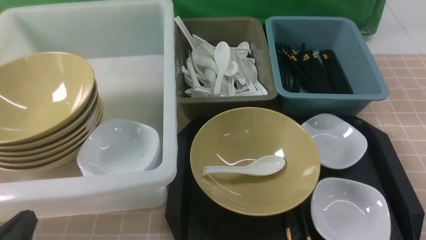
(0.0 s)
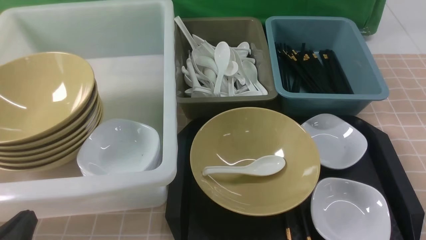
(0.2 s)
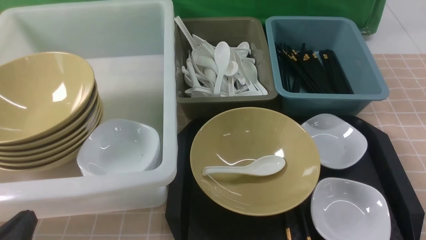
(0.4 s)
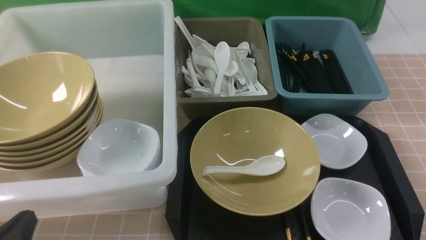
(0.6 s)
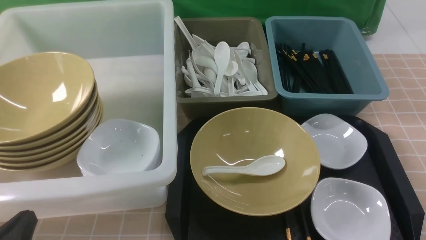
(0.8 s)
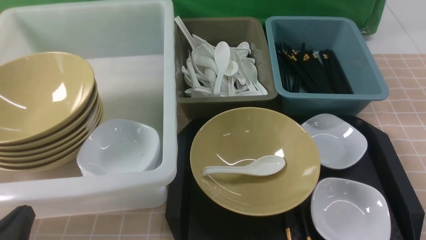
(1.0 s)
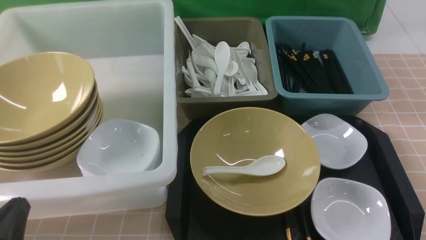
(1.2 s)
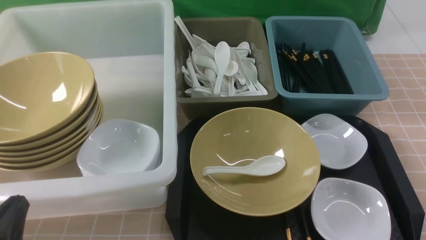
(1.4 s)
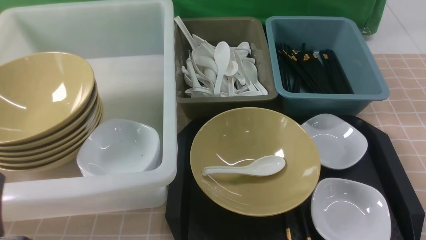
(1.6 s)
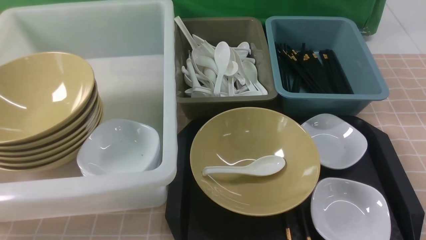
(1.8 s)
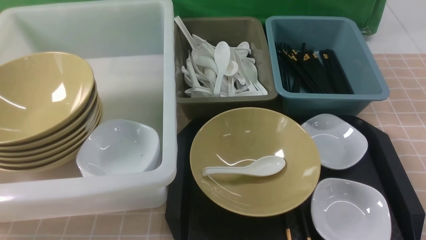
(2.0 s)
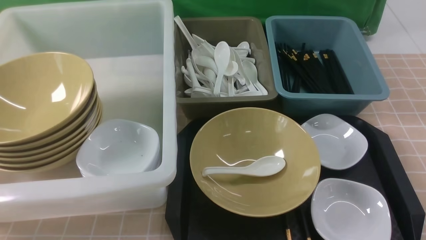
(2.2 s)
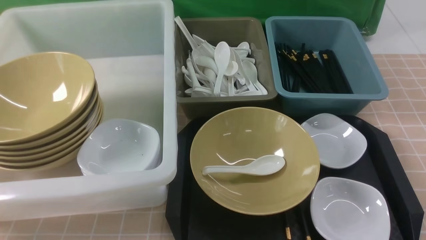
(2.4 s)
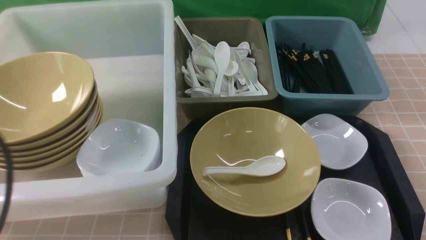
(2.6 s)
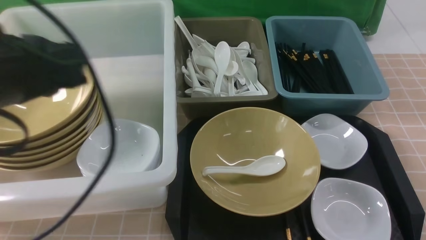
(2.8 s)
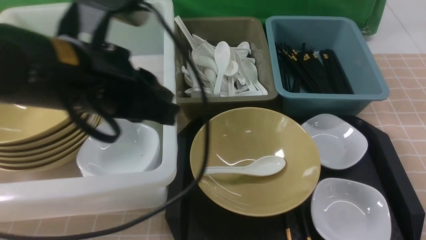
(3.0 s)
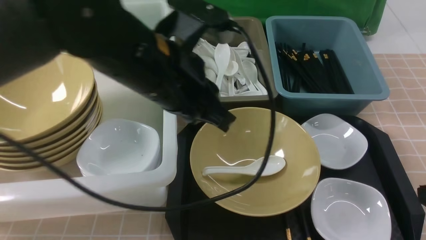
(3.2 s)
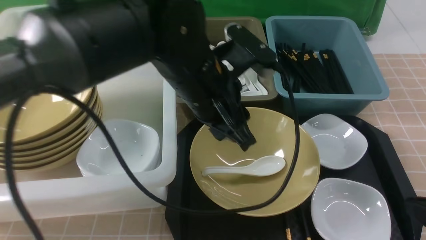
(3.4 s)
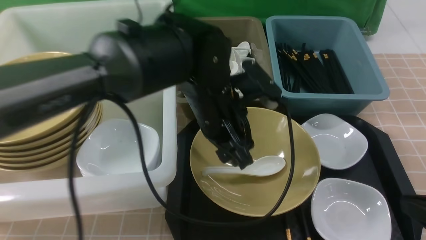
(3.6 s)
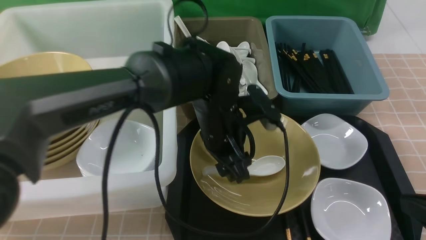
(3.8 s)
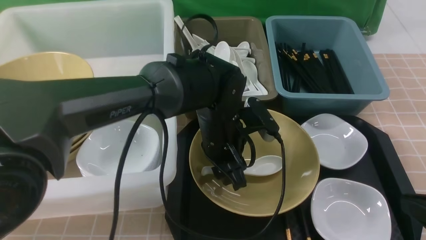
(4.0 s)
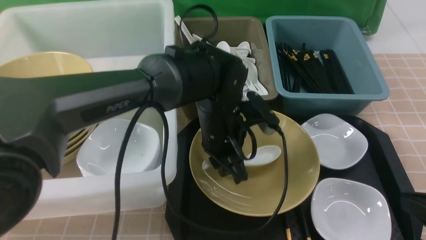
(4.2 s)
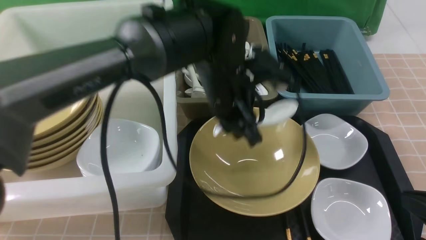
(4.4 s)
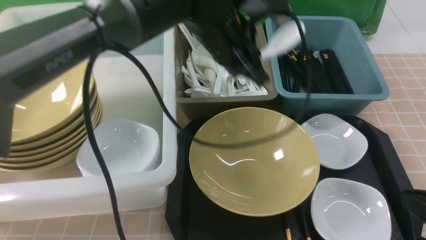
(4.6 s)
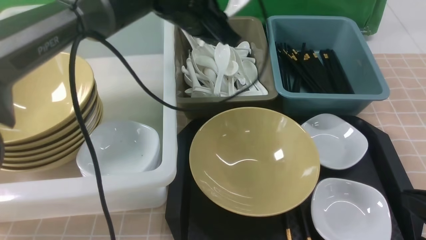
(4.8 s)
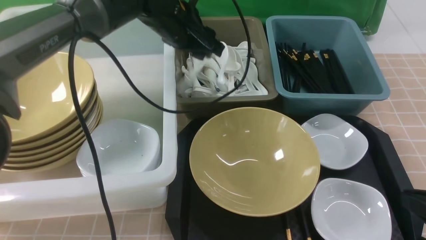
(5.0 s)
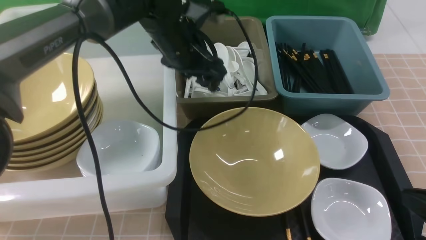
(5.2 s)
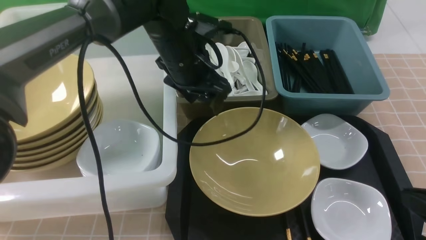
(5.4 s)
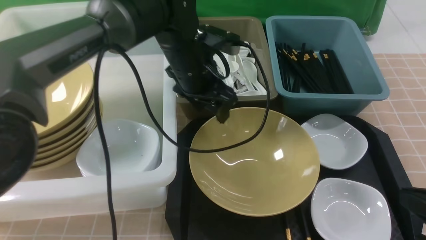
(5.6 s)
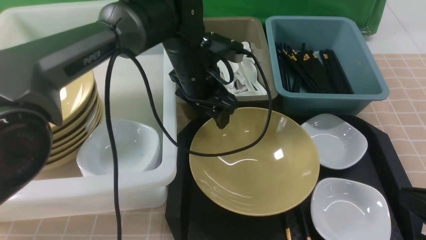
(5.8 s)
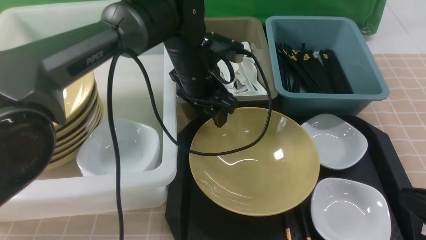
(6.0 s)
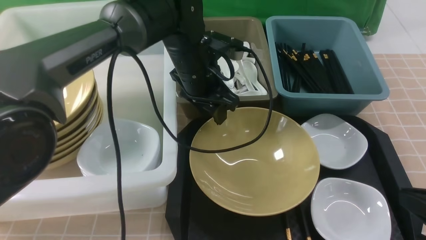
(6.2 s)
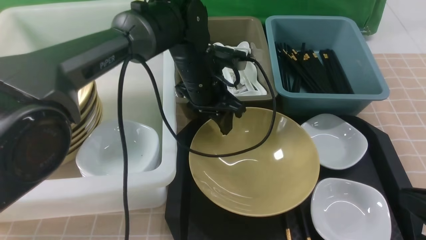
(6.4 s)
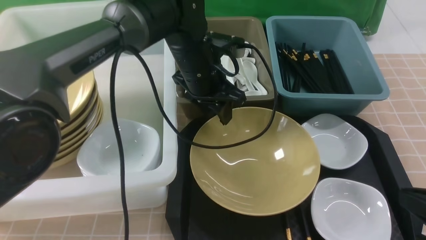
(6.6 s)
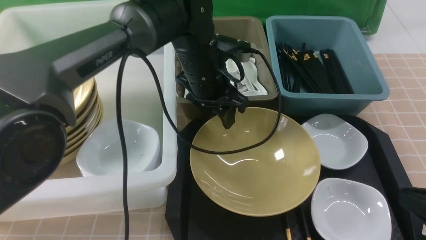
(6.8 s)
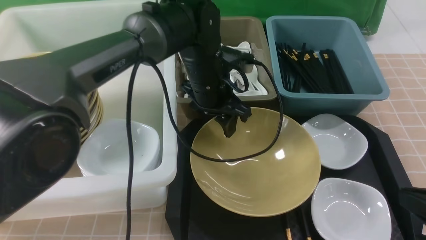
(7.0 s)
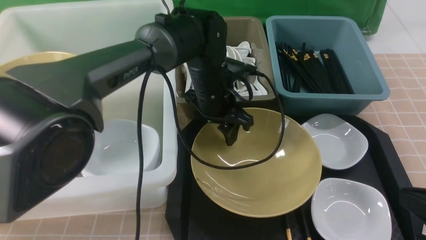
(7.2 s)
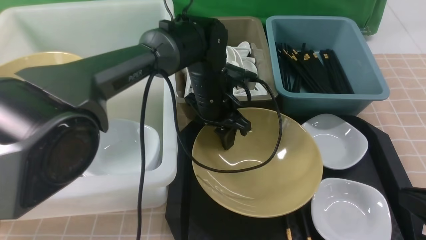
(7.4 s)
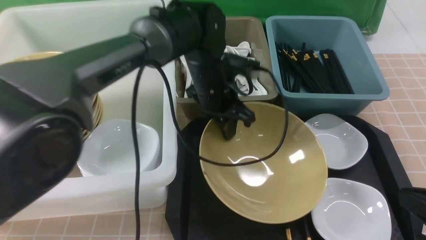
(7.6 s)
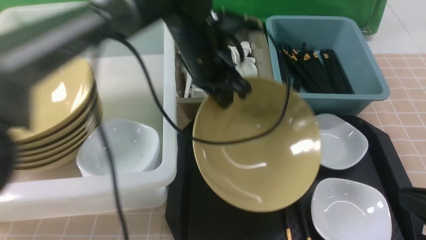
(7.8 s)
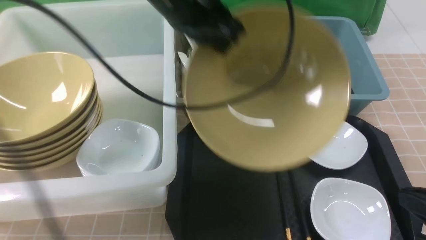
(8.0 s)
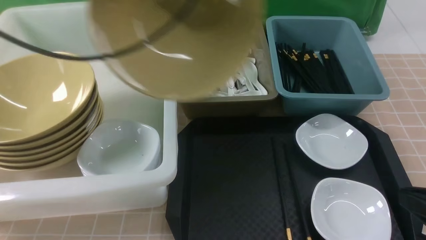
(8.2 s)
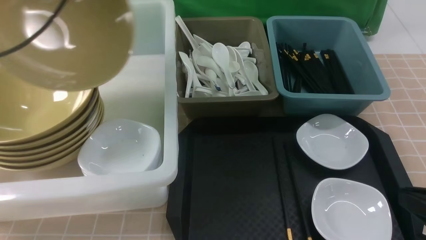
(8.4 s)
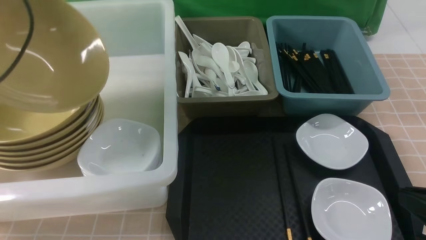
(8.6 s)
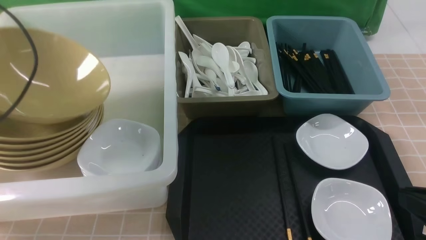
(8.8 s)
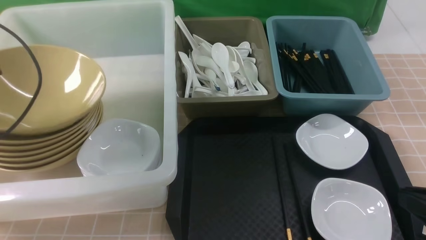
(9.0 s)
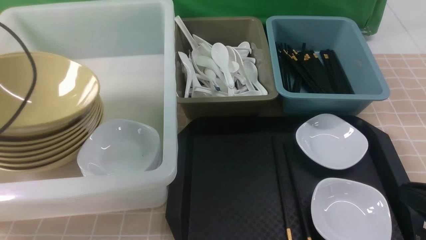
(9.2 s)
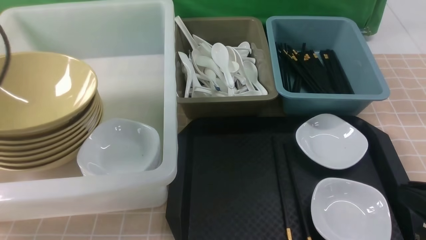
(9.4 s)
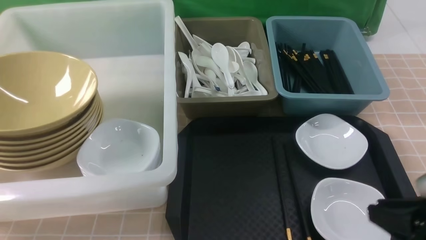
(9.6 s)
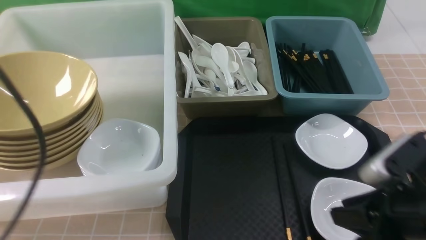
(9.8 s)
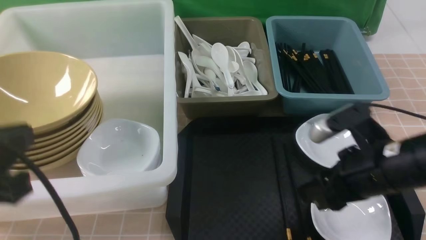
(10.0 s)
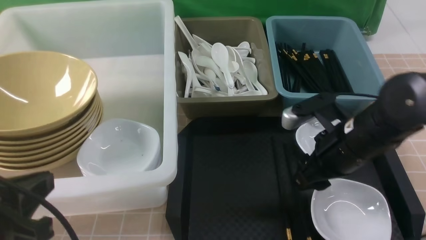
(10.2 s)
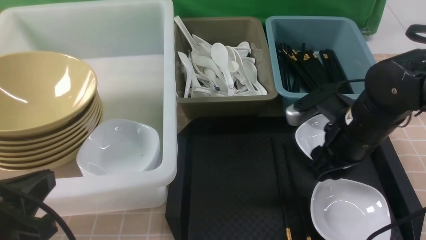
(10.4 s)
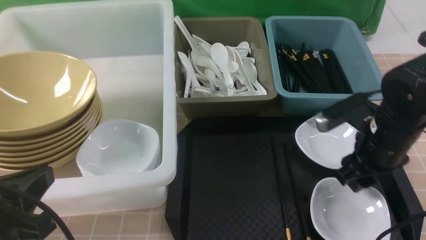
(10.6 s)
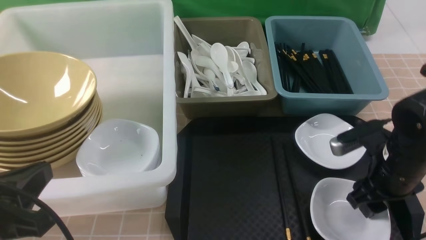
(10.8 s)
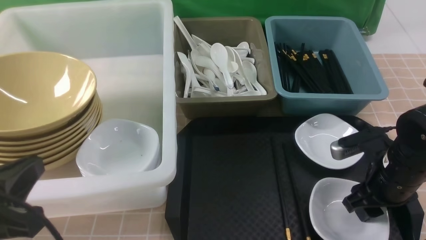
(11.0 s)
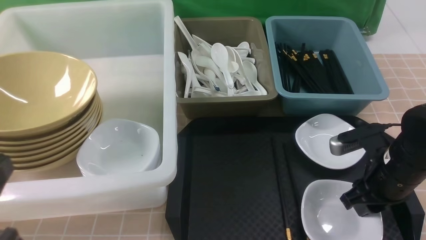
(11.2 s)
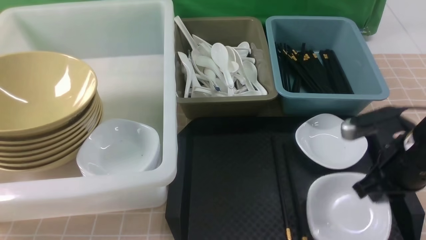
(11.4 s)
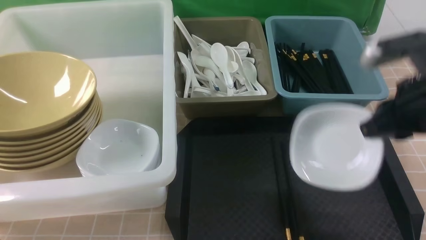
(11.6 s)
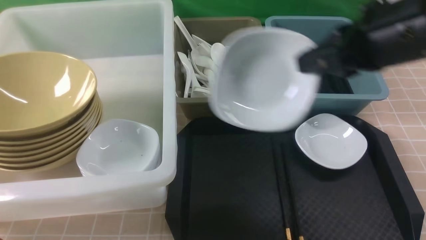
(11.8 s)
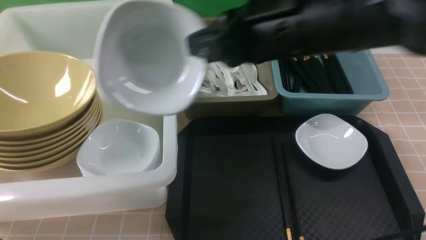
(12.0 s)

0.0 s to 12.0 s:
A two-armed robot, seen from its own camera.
Task of the whole recording: on brown table put chopsticks spoon bowls plates into blue grey white boxes.
Step, 0.0 to 4.4 s: use the left arm to grab the soup spoon in the middle.
Step, 4.6 to 5.6 s: use the left arm to put the soup spoon into the small storage box in the middle.
Step, 5.8 to 7.8 s: use the left arm to grab the yellow noodle bowl on the left.
Step, 8.0 to 9.6 s: use the left arm to put the noodle bowl into the large storage box on the left.
Step, 9.8 to 11.4 s: use the right arm to grab the plate.
1.6 to 3.0 s: The right gripper is displaced upward by approximately 5 cm, and closes its fingers. The left gripper goes about 25 cm upward, forward and to the right.
3.0 to 4.4 s: The left gripper moves to the right, downward and forward, about 25 cm, and opens, then closes once more.
4.4 to 6.0 s: The left gripper goes about 5 cm forward, and opens up.
6.0 to 7.6 s: The left gripper closes up.
7.6 to 9.0 s: The left gripper is displaced to the left by approximately 35 cm, and opens up.
9.0 to 10.4 s: The right gripper is displaced forward and to the left by roughly 20 cm, and opens its fingers. Meanwhile the left gripper shifts approximately 25 cm backward and to the right, and closes its fingers.
10.4 to 12.0 s: The right gripper heads upward and to the left, covering roughly 15 cm, and closes its fingers; the left gripper shifts by roughly 5 cm.

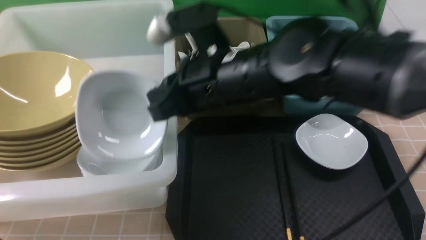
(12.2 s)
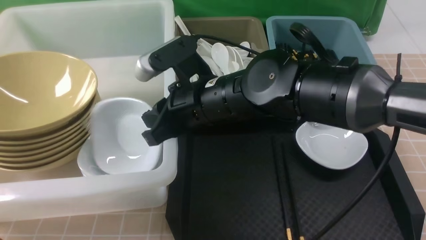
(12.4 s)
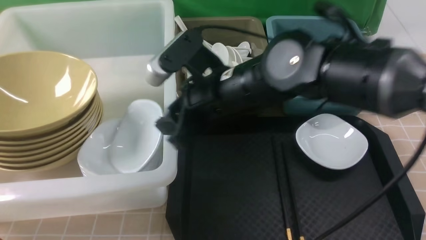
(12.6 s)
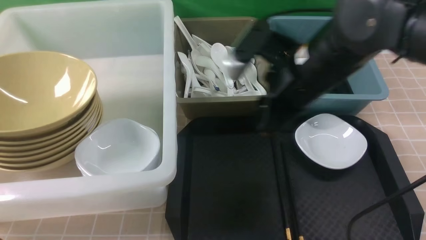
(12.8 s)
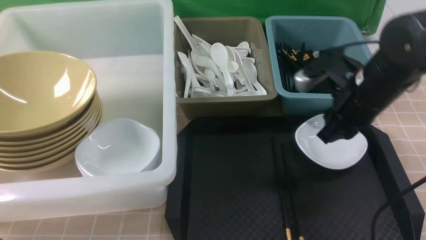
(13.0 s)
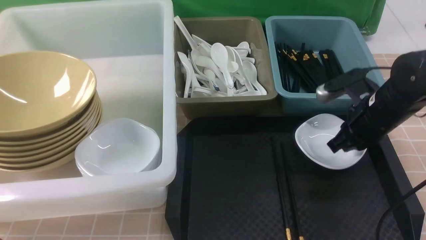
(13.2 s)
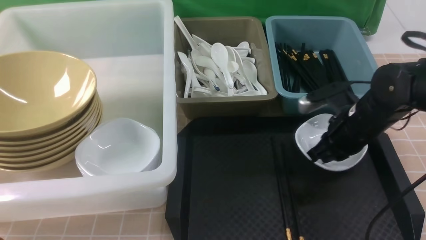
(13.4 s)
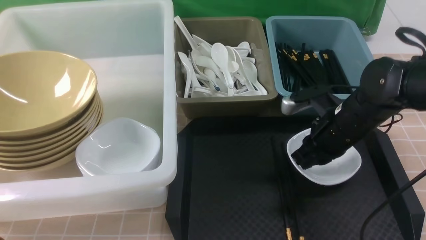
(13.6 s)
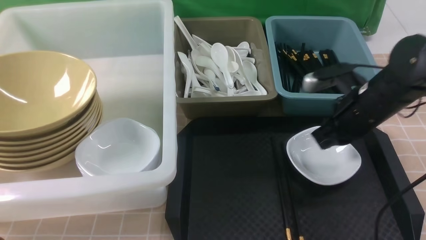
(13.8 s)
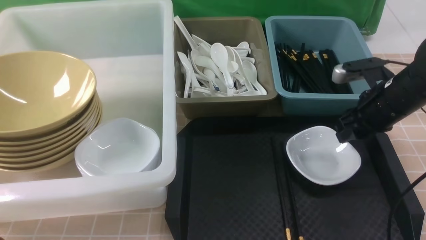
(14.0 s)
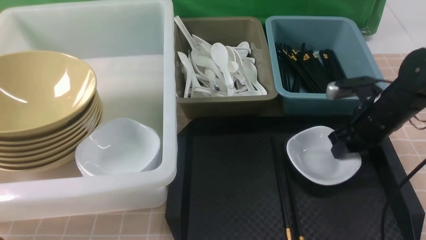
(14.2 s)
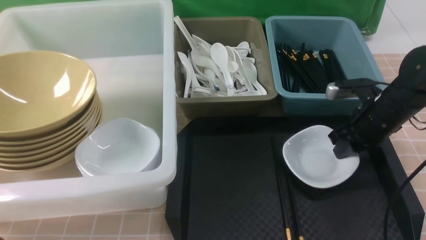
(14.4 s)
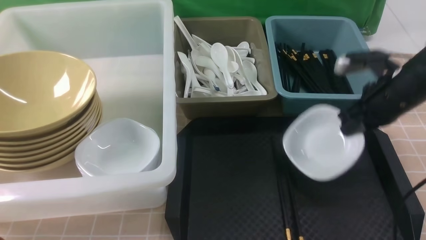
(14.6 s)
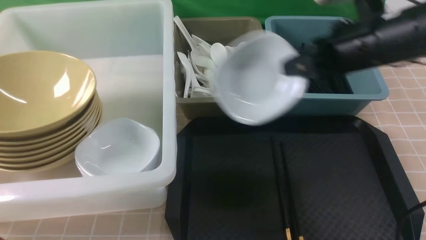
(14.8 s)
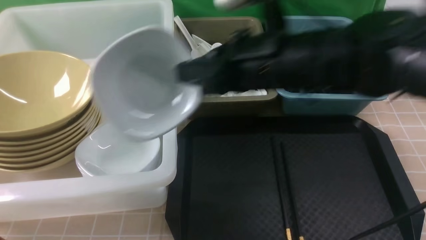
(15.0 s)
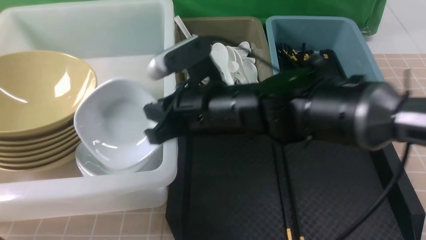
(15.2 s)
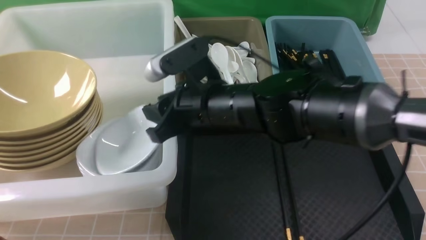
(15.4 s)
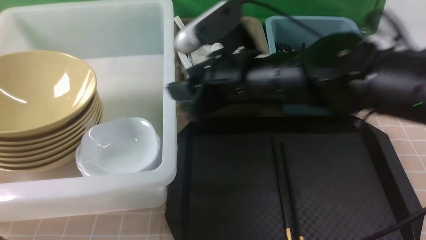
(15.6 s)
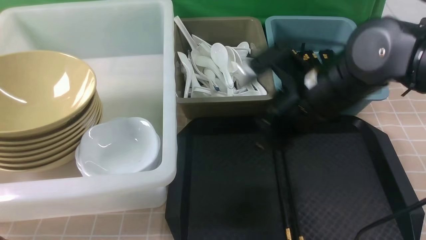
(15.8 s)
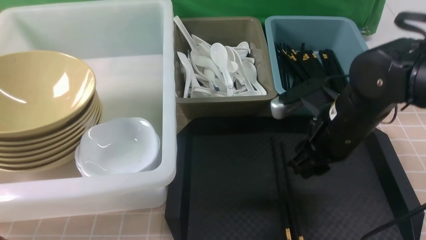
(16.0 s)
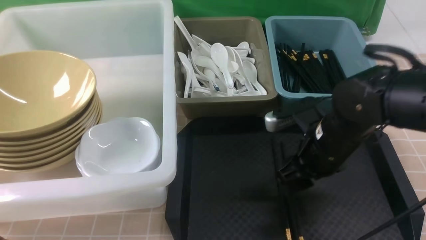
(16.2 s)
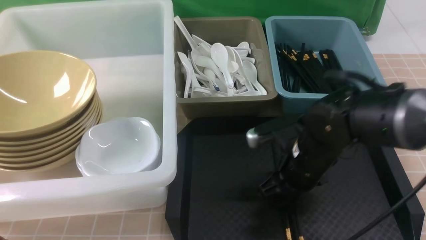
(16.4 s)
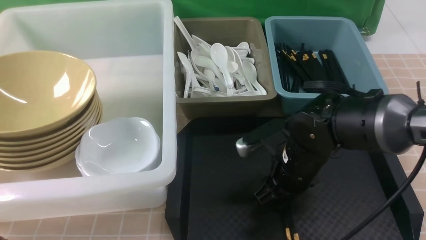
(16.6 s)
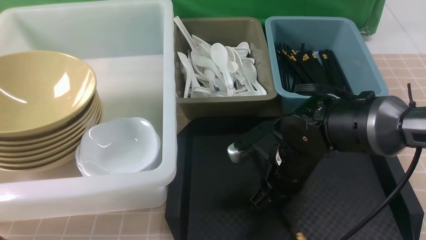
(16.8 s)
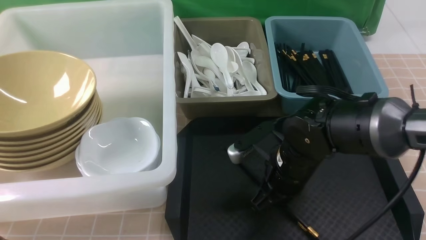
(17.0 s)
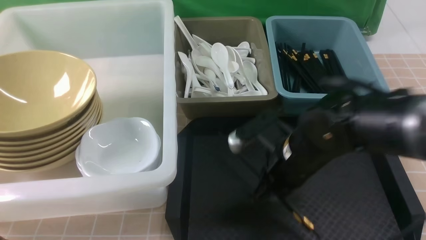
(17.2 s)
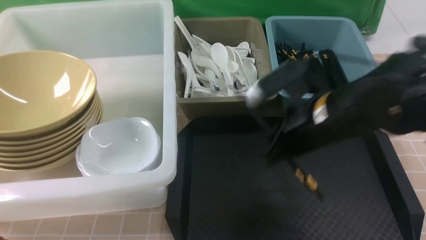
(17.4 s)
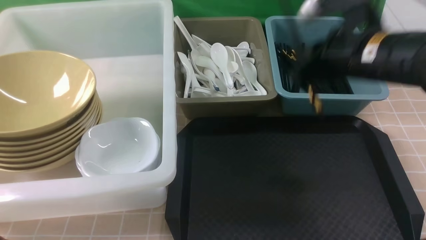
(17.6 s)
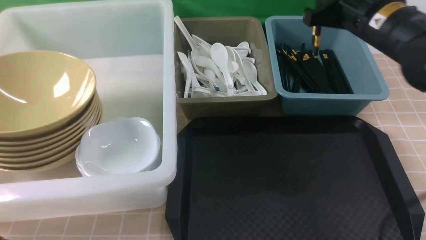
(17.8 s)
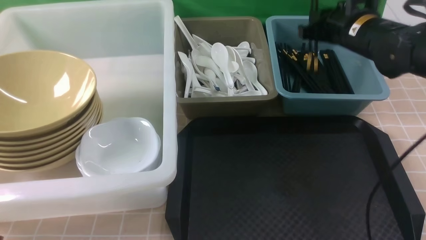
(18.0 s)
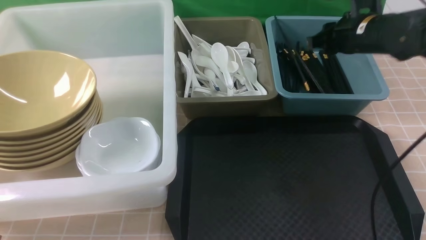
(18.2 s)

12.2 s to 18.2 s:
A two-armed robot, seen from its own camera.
Task of the whole recording: on brown table put chopsticks spoon bowls plates into blue grey white boxes.
Step, 13.0 to 14.4 s: use the right arm to grab the plate.
Step, 14.6 to 15.6 s: use the right arm to put the plate into the large storage box on the left.
Step, 15.8 to 17.2 s: use the right arm to grab the chopsticks.
12.2 to 13.8 s: The right gripper moves to the right and downward, roughly 20 cm, and opens, then closes again.
13.8 to 15.2 s: The right gripper travels to the left and upward by approximately 20 cm, and opens, then closes again.
15.2 to 16.6 s: The right gripper shifts roughly 15 cm downward and to the right, and opens up.
16.6 to 18.2 s: The right gripper shifts some 20 cm forward, upward and to the right, and closes up.
